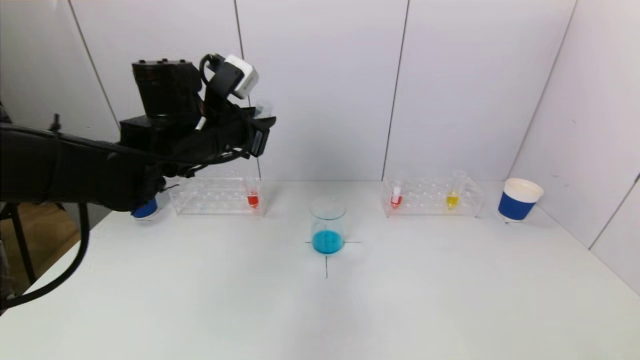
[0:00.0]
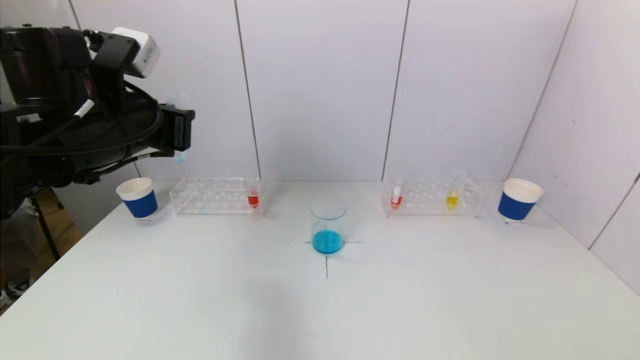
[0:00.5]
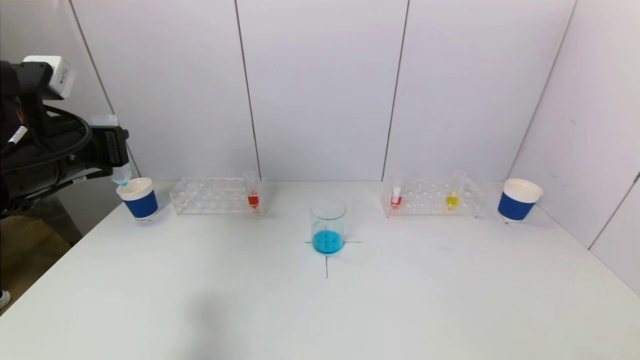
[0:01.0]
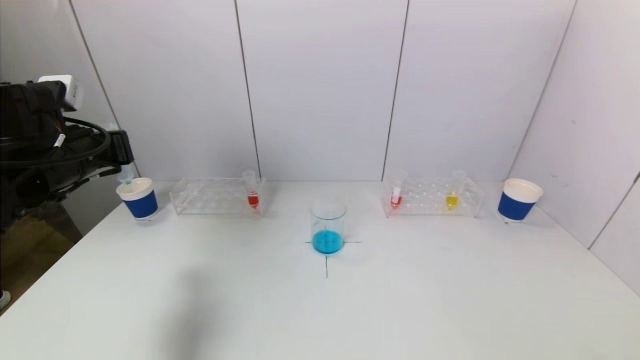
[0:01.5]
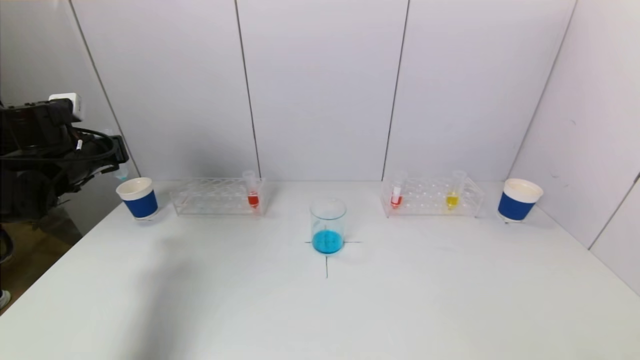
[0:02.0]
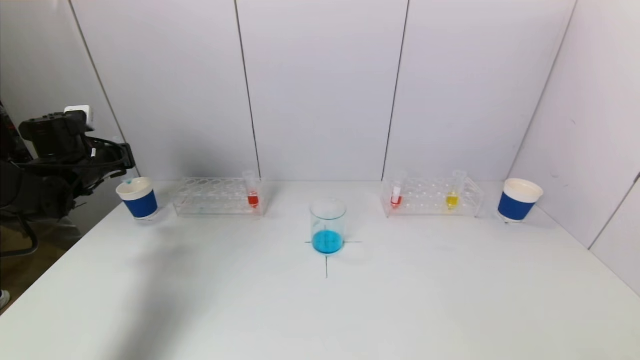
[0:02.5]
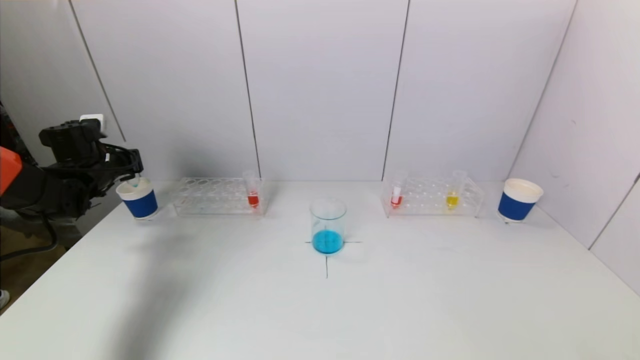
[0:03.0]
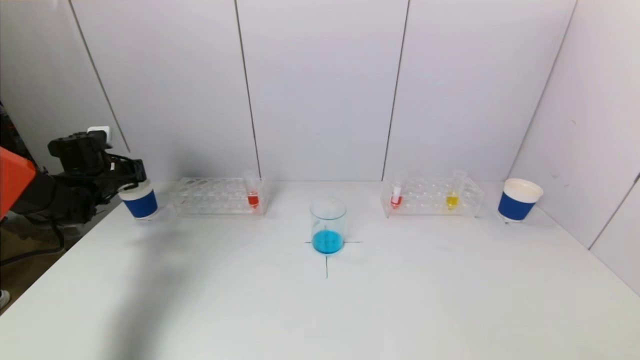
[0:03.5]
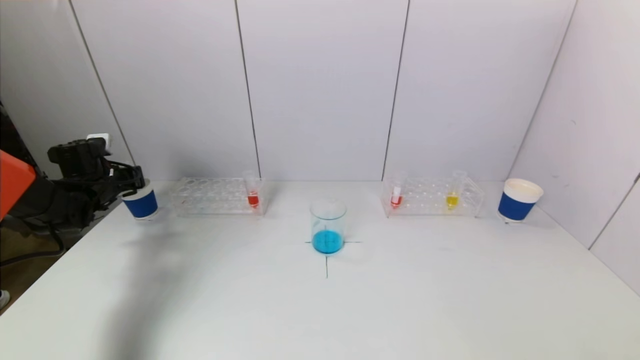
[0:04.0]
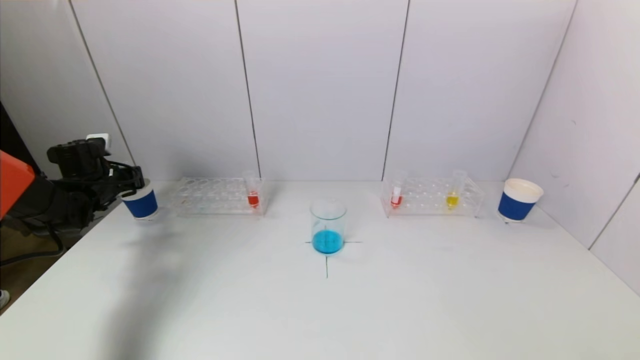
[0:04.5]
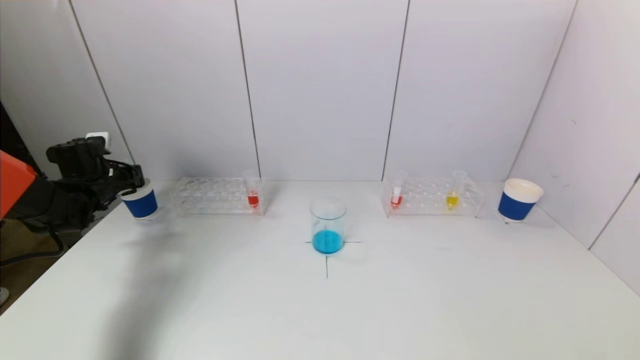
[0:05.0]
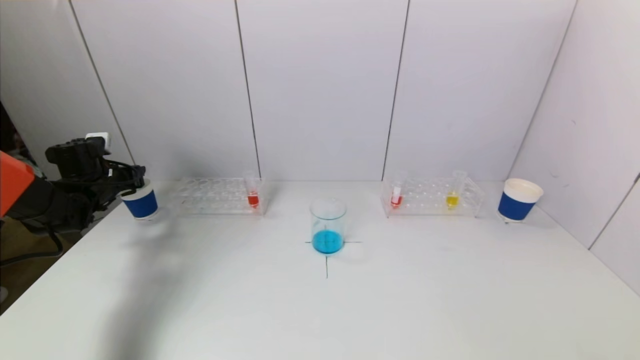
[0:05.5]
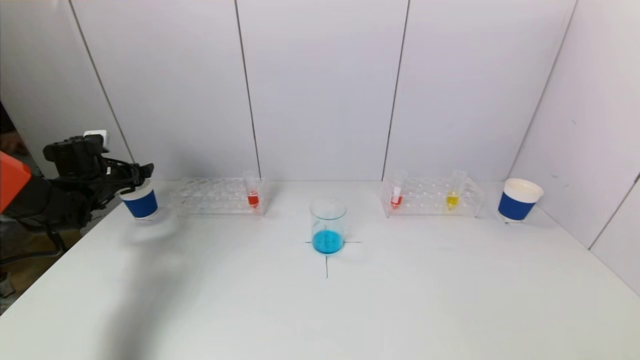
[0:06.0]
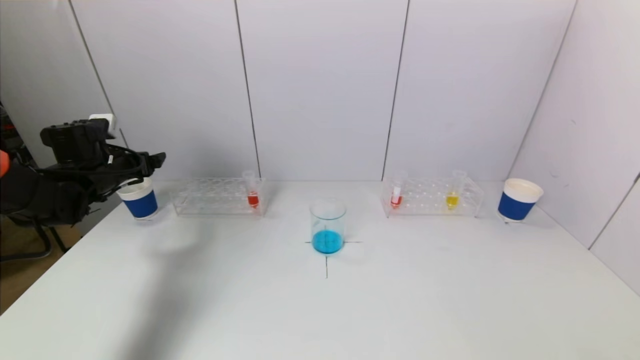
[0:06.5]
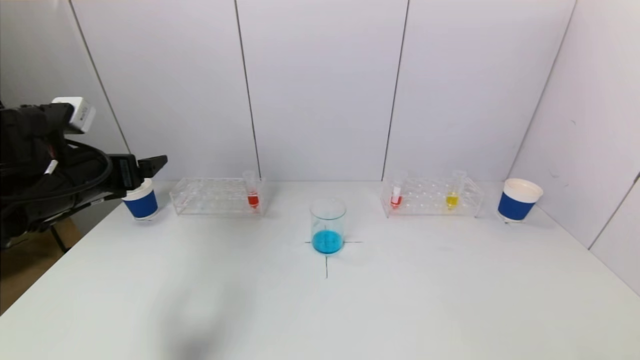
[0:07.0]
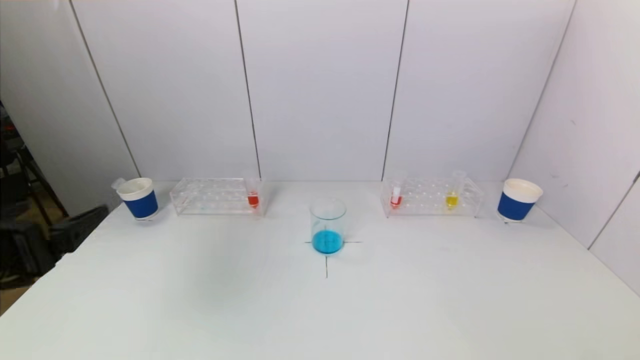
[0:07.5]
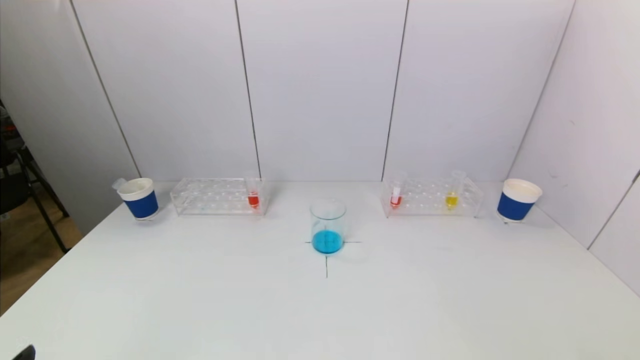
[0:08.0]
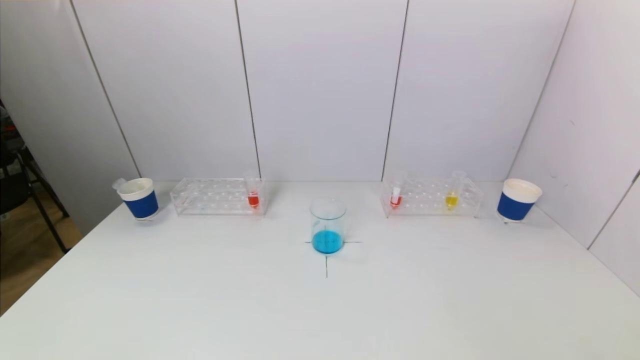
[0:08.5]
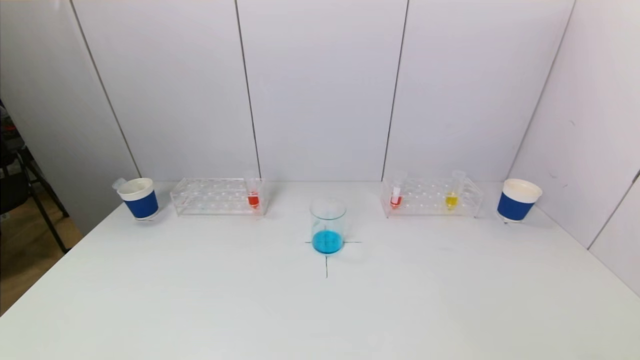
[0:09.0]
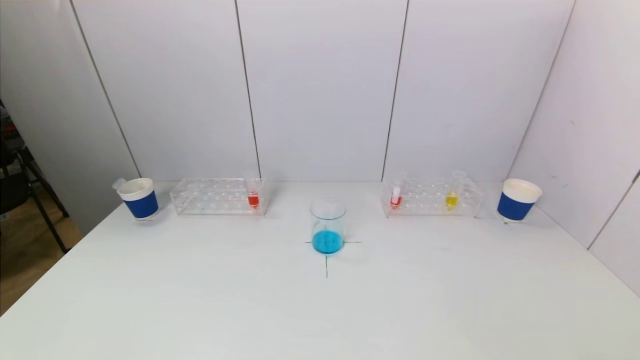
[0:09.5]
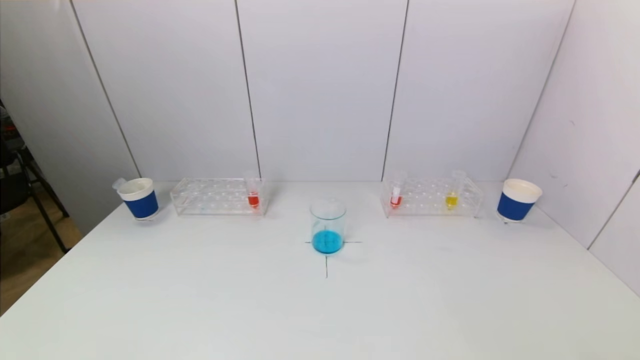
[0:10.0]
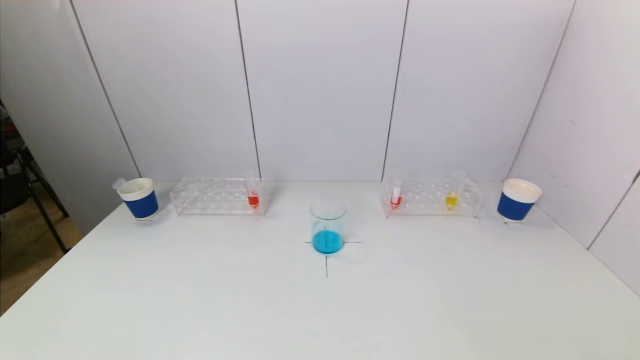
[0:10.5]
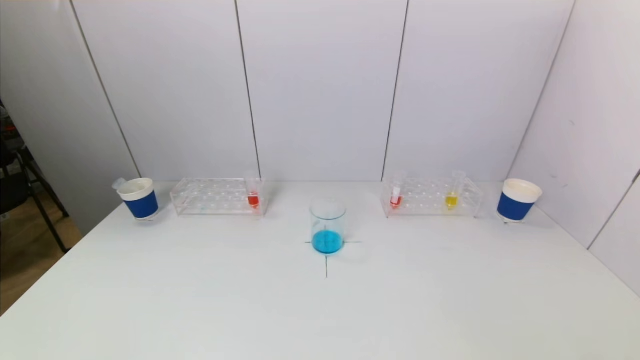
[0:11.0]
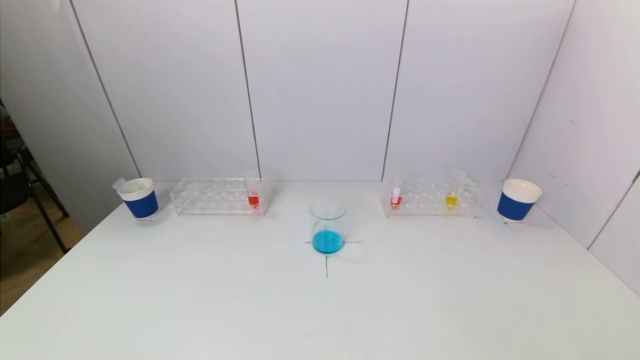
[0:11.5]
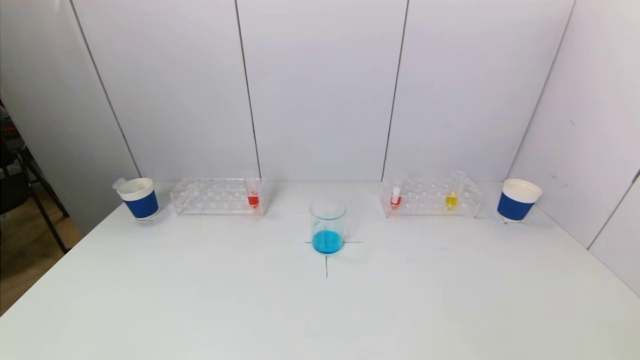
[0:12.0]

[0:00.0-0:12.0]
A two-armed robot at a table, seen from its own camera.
Task of the whole recording: pick up a test tube with pigment on left test tube rack and a test tube with pigment on right test tube rack by grippers and pour them into the beaker.
Step, 0:00.0 to 0:05.5: Place the test tube into the paper cup with the left gripper.
0:00.0 to 0:02.0: The left gripper shifts some 25 cm to the left.
0:02.0 to 0:04.0: The left gripper goes about 10 cm downward and forward.
0:04.0 to 0:06.0: The left gripper opens.
0:06.0 to 0:08.0: The left gripper heads backward, covering some 40 cm.

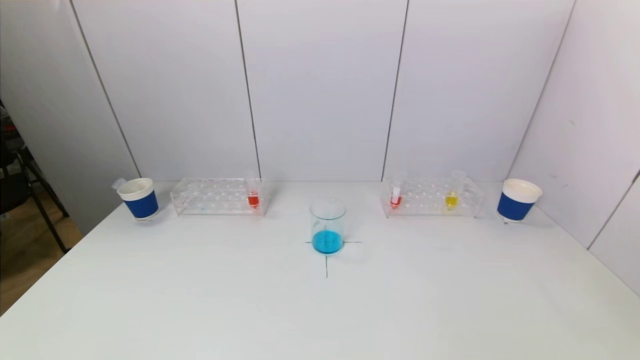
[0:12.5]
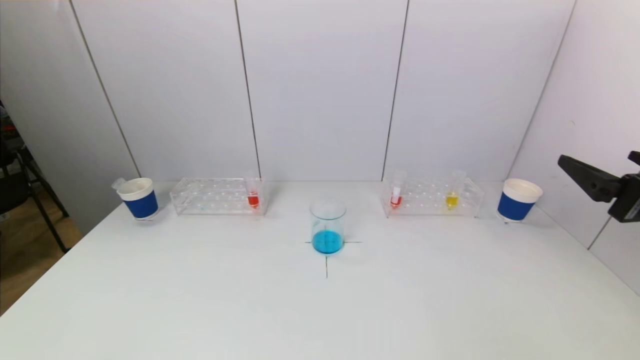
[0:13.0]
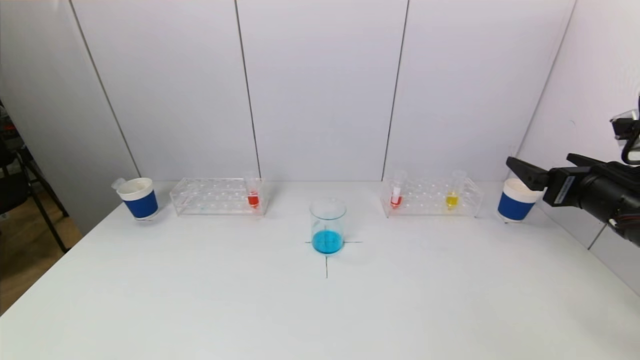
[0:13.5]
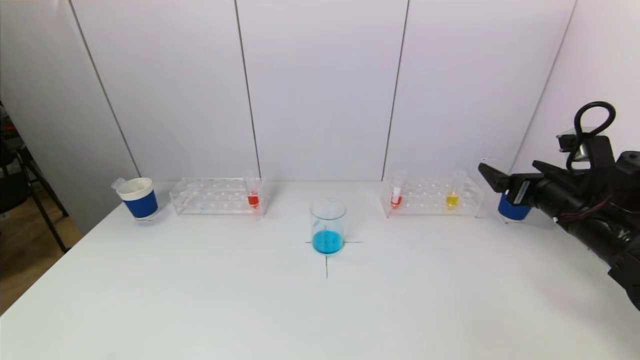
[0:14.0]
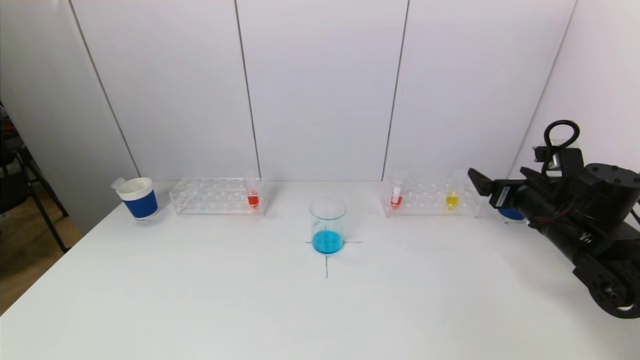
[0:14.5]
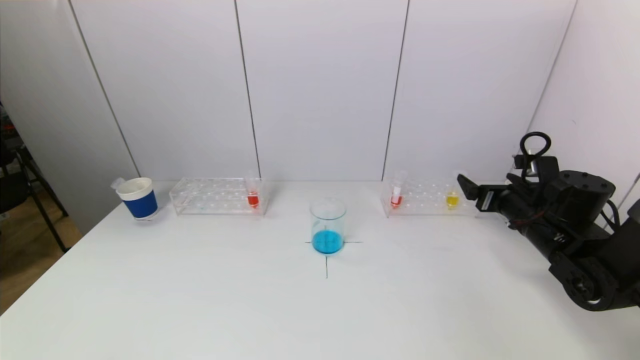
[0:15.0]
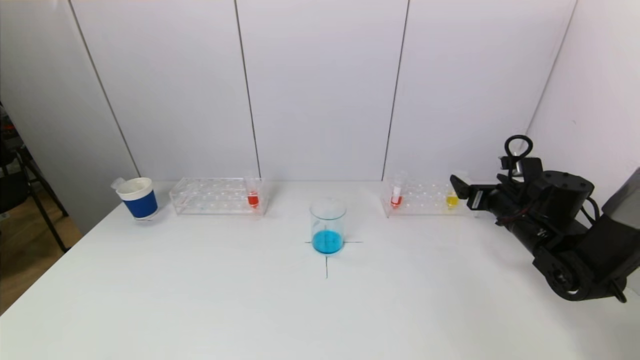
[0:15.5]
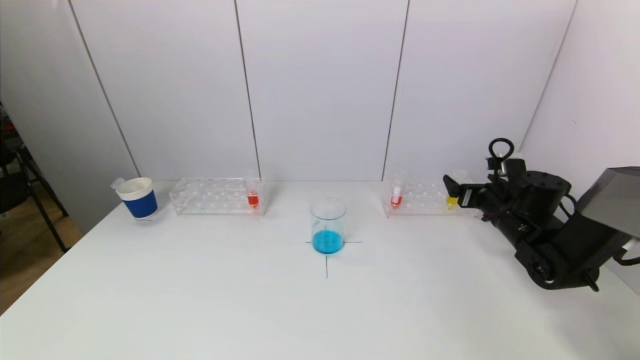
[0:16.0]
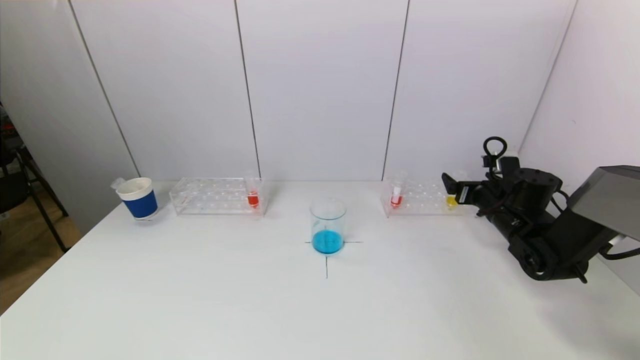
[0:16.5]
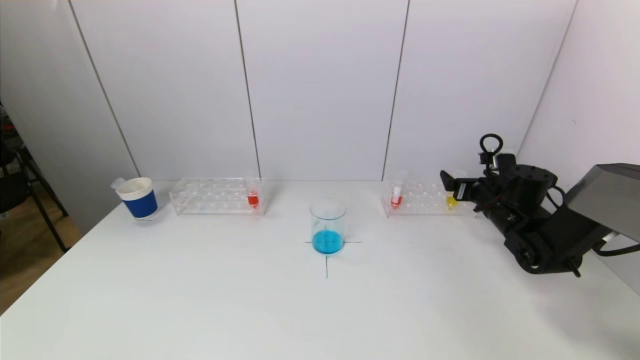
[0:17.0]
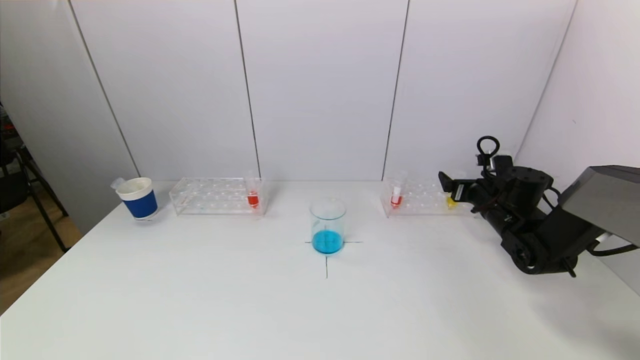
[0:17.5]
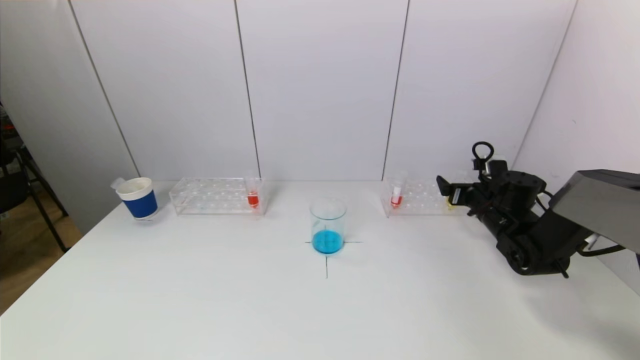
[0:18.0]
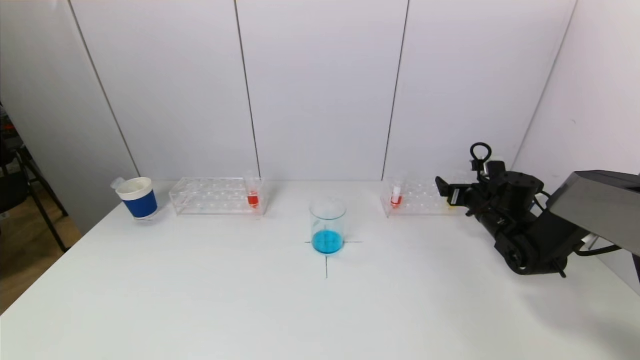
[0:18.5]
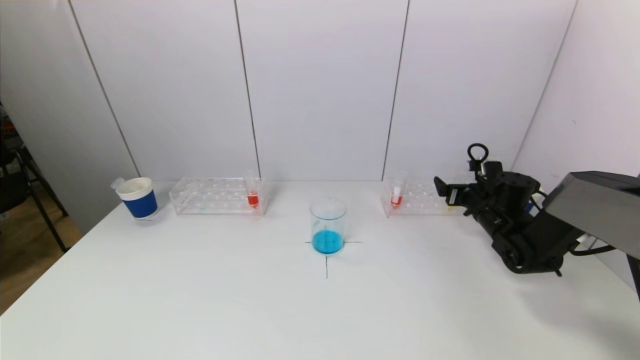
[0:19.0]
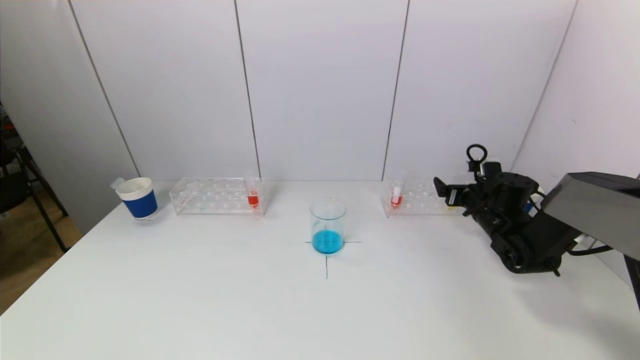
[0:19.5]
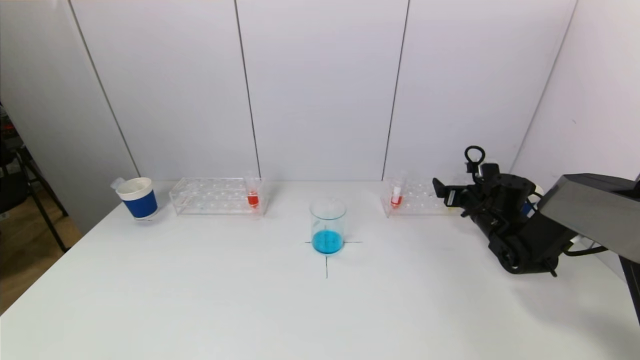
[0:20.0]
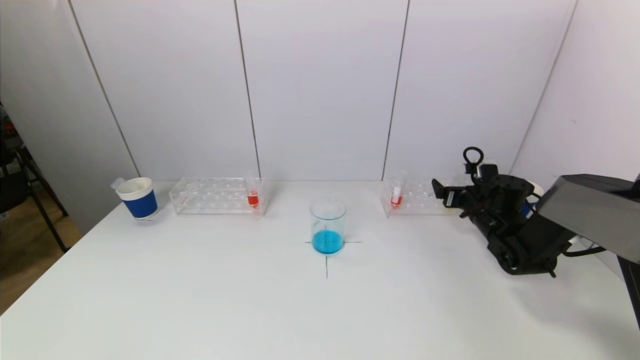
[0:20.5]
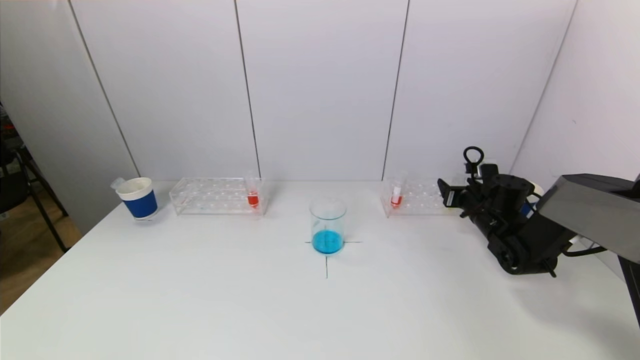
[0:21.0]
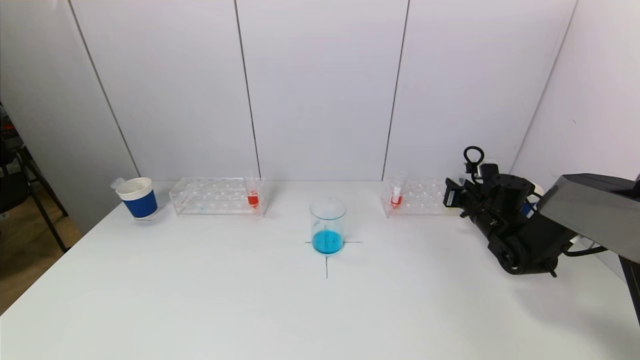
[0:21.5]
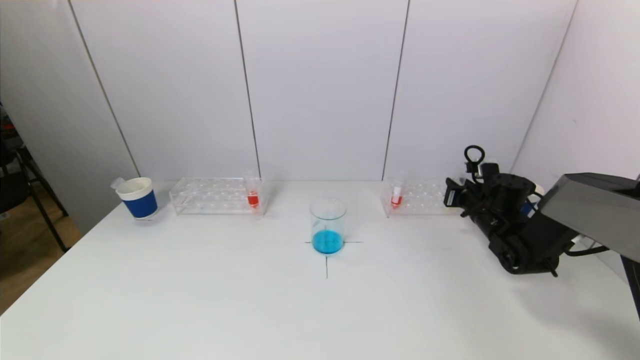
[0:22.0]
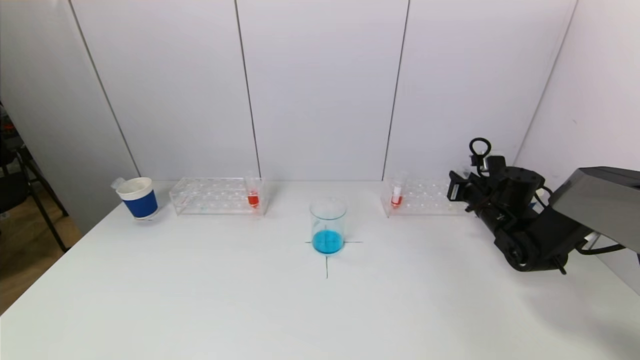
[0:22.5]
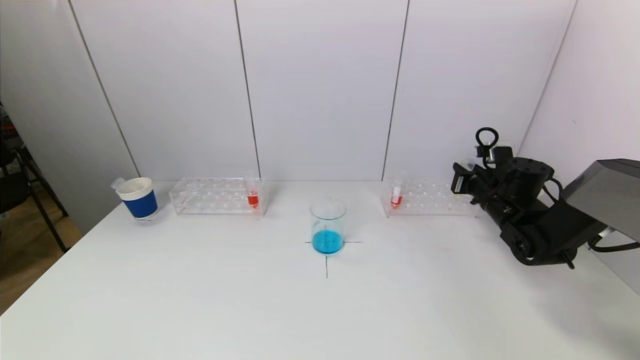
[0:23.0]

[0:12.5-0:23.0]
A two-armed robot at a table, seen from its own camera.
Task of the whole recording: pick up a test tube with pigment on left test tube rack and a test tube with pigment on right test tube rack by grippers and pour them into the beaker.
Step, 0:12.5 to 0:21.5: Grasp the yellow reagent with the right gripper.
0:12.5 to 0:14.5: The right gripper heads forward, covering about 25 cm.
0:14.5 to 0:16.5: The right gripper heads forward and downward, covering about 10 cm.
0:16.5 to 0:19.0: The grippers move only a little.
0:19.0 to 0:21.0: The right gripper closes its fingers.
0:21.0 to 0:23.0: The right gripper closes.
